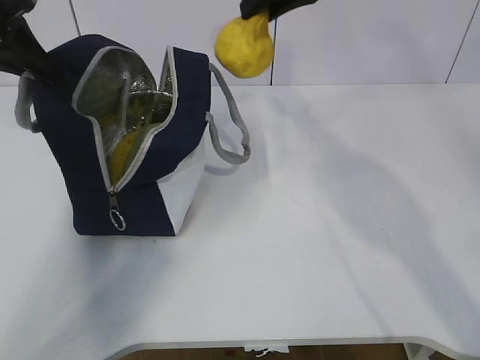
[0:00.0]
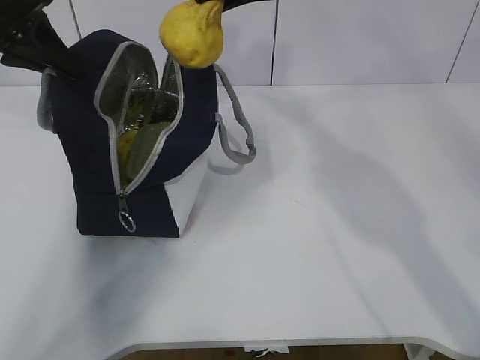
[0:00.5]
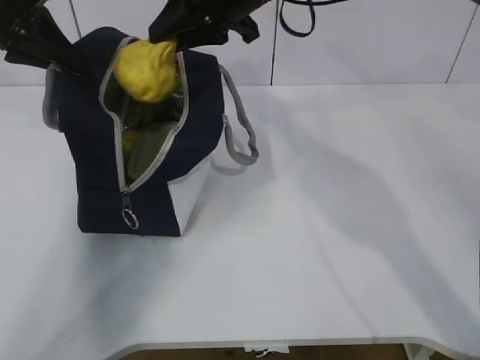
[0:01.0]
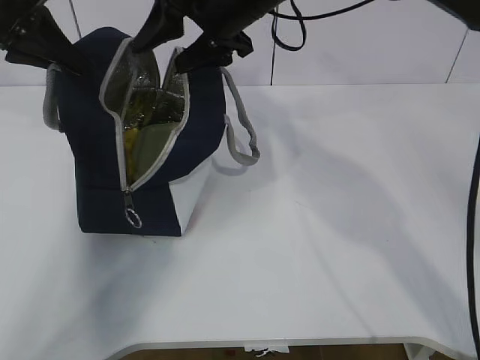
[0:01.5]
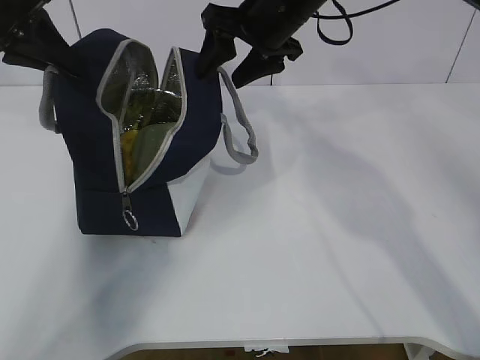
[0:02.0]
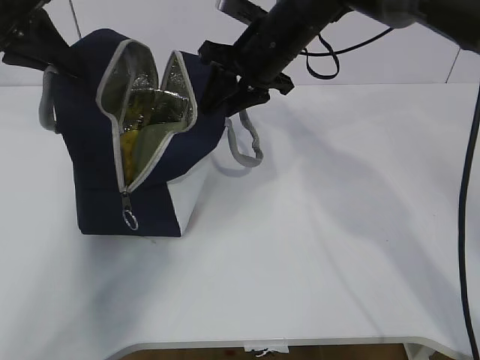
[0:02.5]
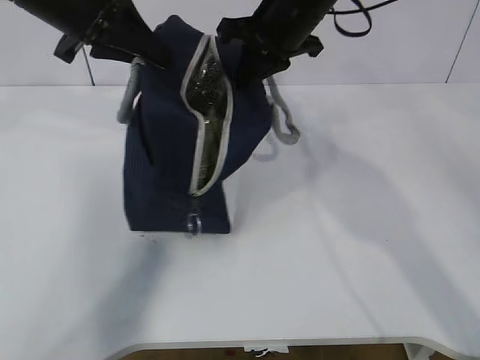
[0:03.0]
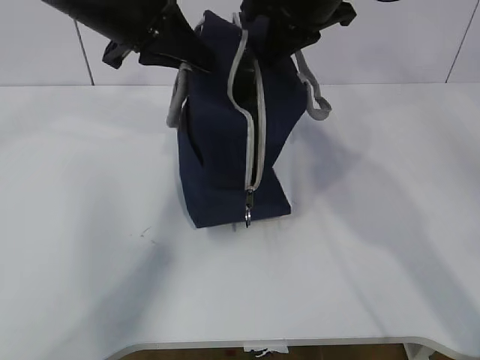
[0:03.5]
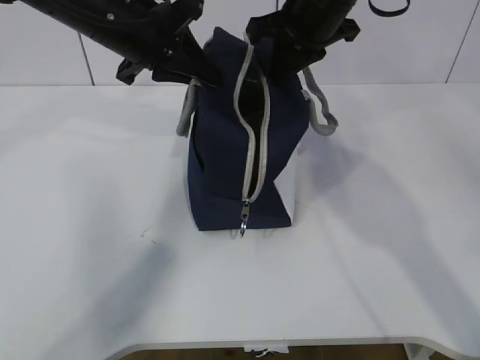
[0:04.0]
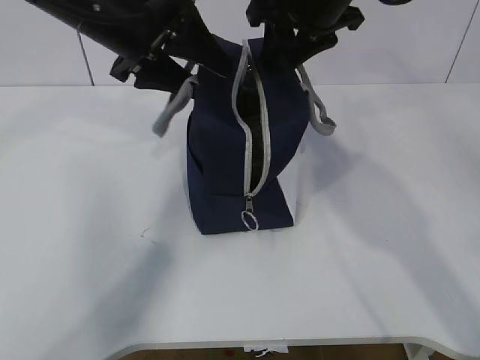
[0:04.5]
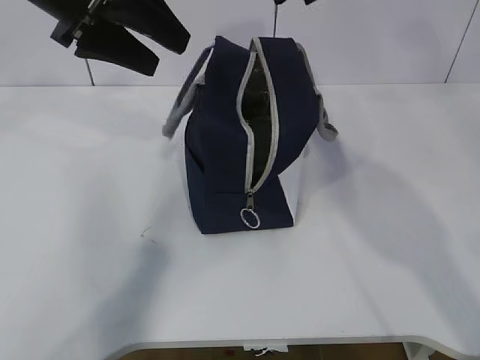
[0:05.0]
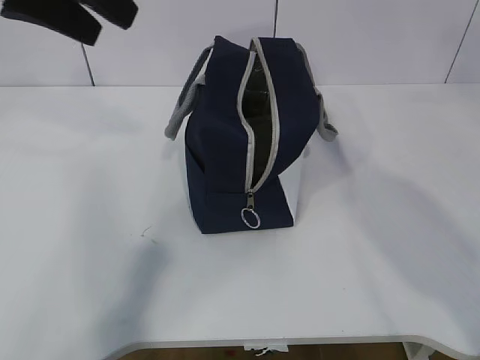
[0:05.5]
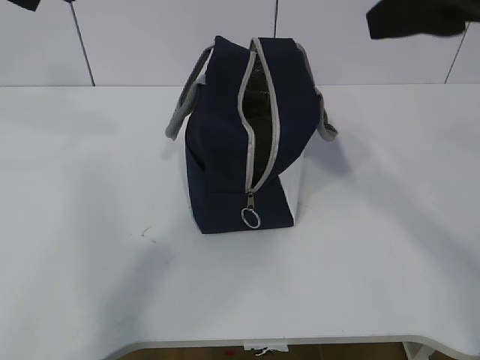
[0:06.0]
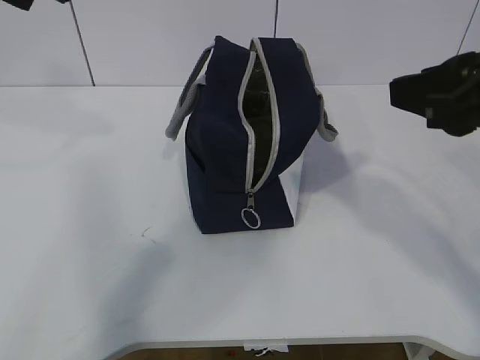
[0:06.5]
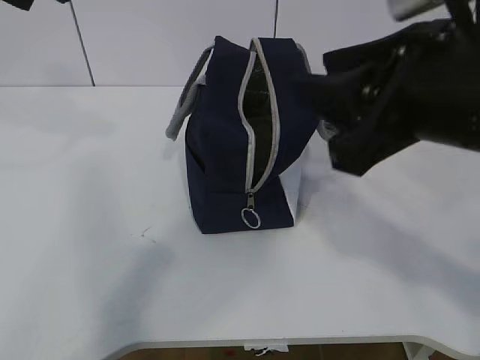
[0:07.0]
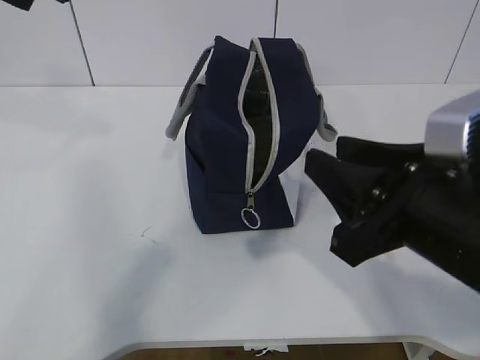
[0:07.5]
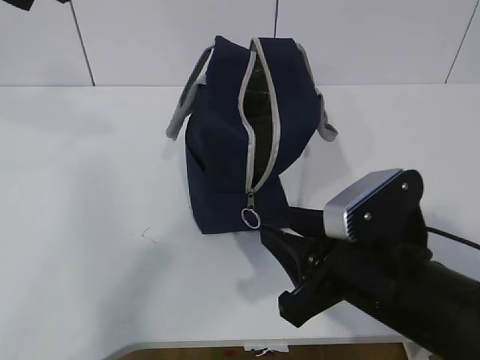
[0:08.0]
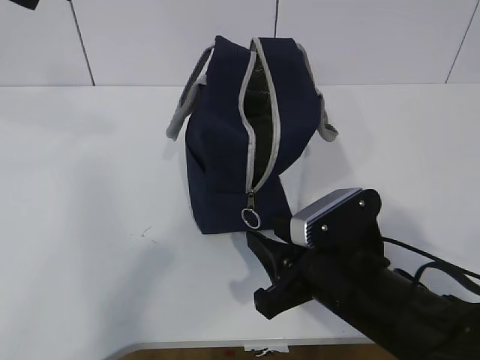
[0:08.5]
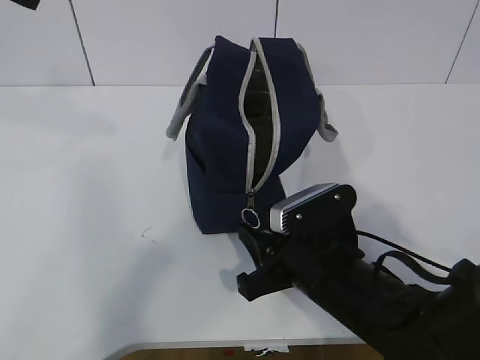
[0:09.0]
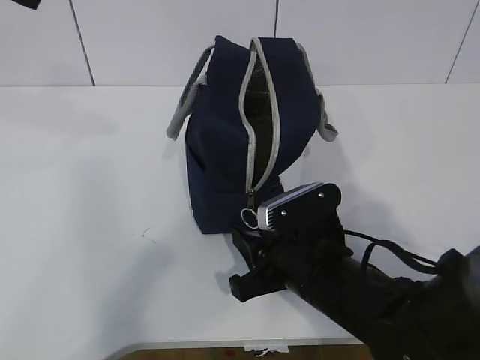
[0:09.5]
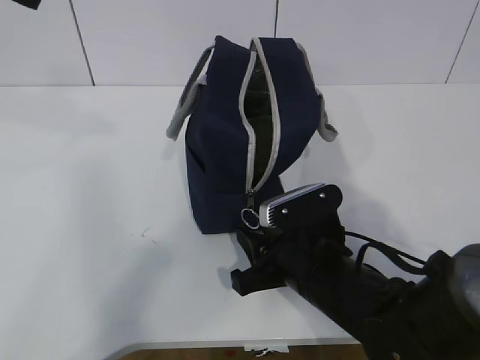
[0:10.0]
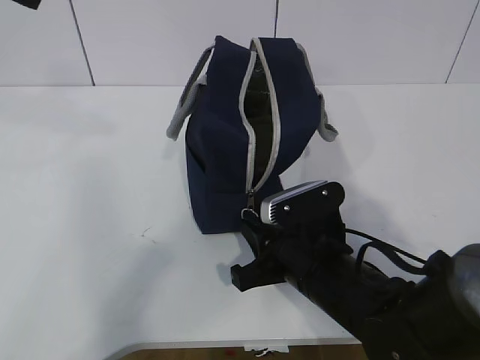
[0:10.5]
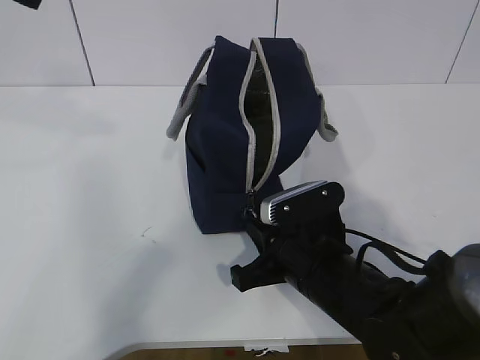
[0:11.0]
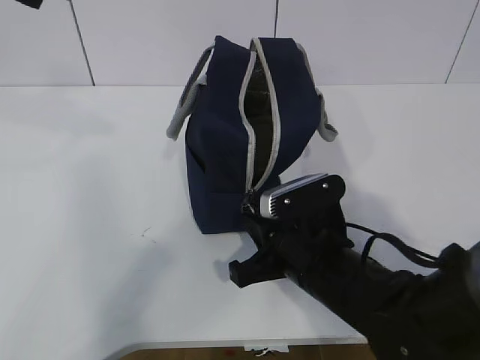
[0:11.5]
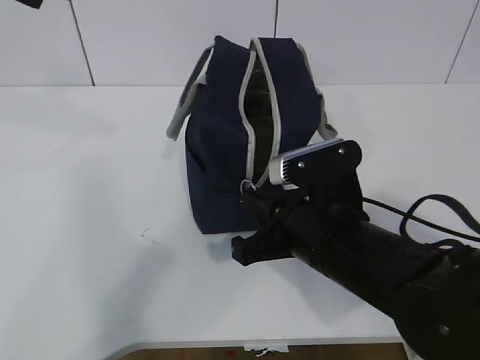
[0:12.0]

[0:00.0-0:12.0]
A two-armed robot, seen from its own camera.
Step, 0:00.0 to 0:09.5: Grab the lunch bag with your left hand.
0:00.0 to 0:02.0: The right gripper travels downward by roughly 10 cm, and opens up.
0:02.0 to 0:04.0: The left gripper moves to the right, approximately 15 cm; the right gripper moves approximately 5 cm downward and comes back, and closes up.
0:04.0 to 0:06.0: The right gripper moves backward, some 20 cm, and opens its fingers; the left gripper is displaced upward, backward and to the left by about 20 cm, and opens its fingers.
0:06.0 to 0:08.0: The right gripper moves downward, some 25 cm.
0:08.0 to 0:10.0: The right gripper moves downward and forward, about 10 cm.
0:10.0 to 0:12.0: The right gripper travels upward by about 5 cm, and closes its fingers.

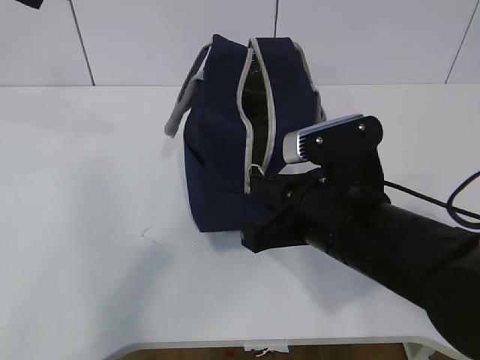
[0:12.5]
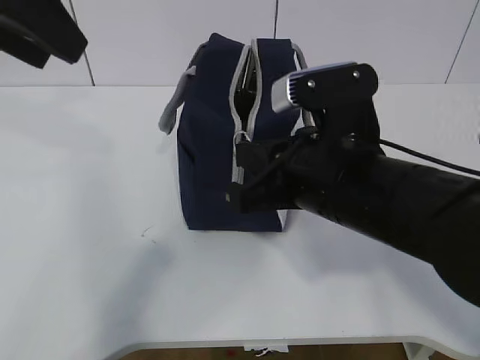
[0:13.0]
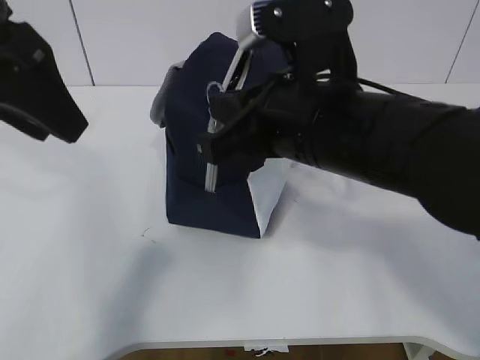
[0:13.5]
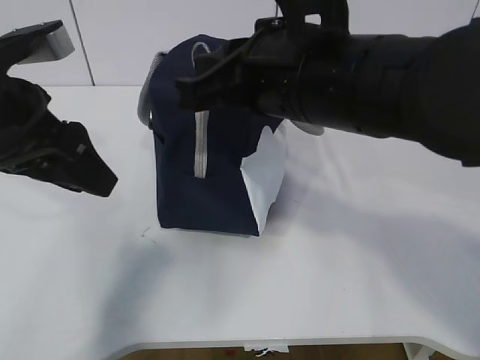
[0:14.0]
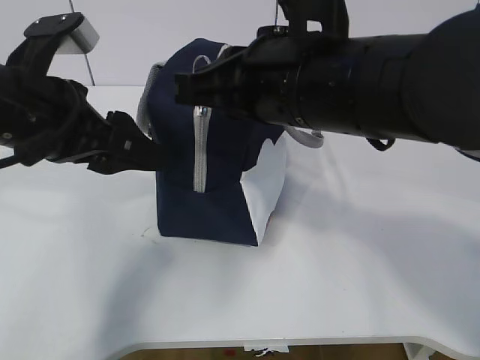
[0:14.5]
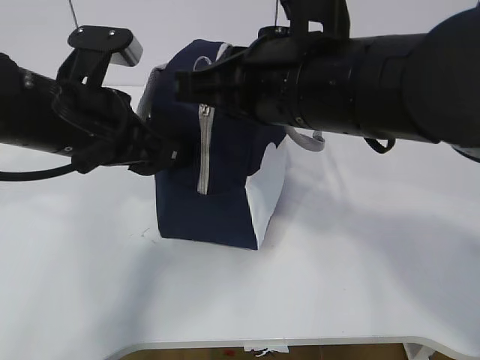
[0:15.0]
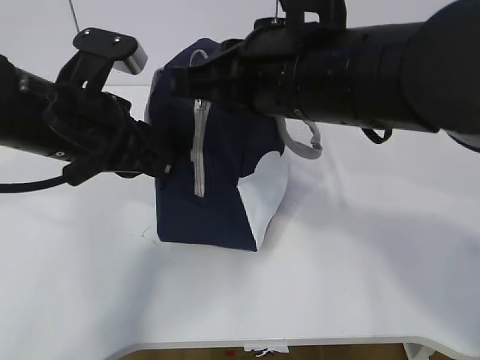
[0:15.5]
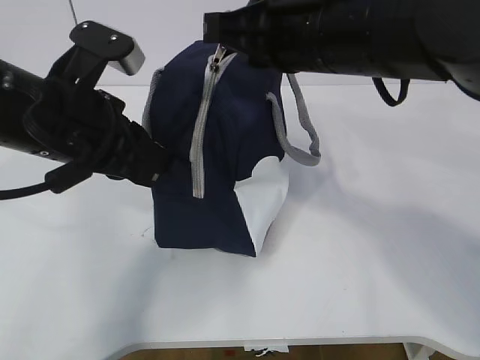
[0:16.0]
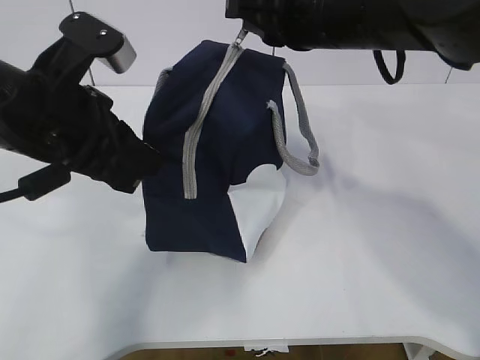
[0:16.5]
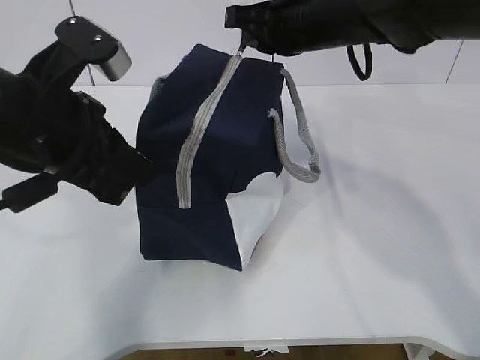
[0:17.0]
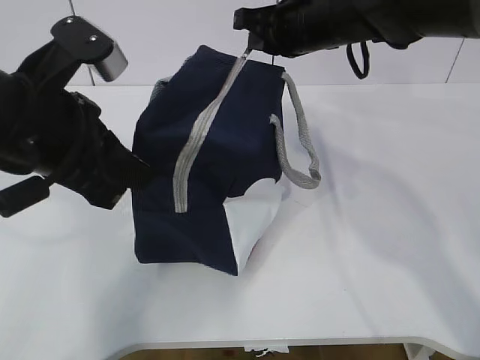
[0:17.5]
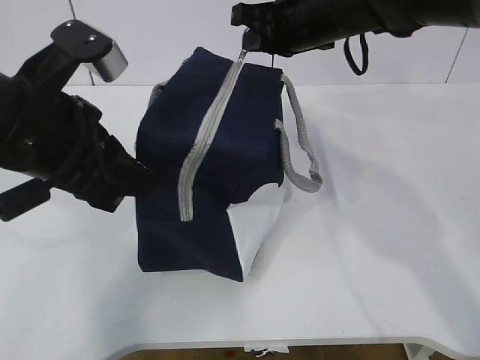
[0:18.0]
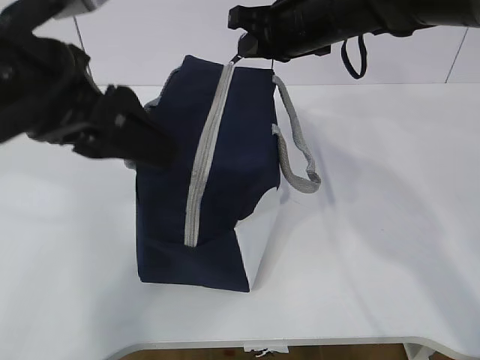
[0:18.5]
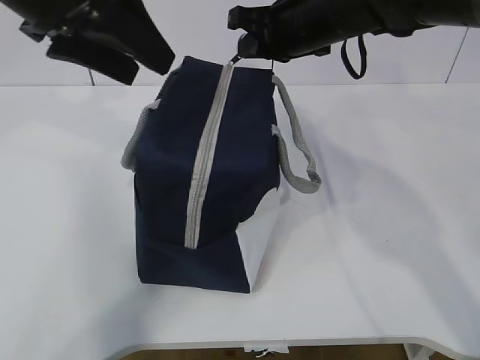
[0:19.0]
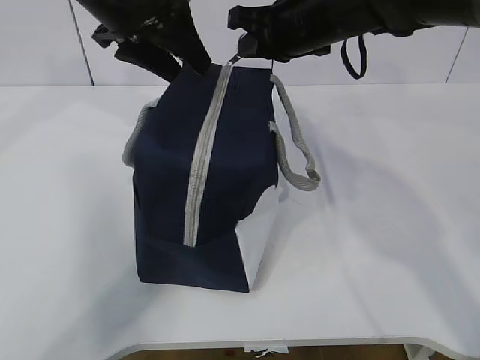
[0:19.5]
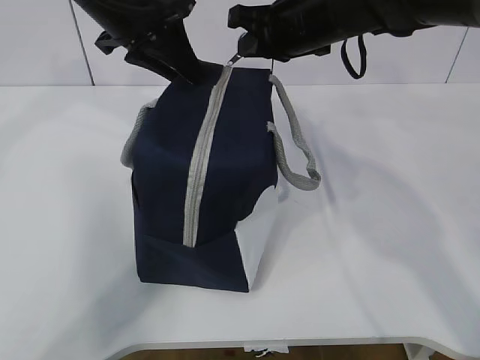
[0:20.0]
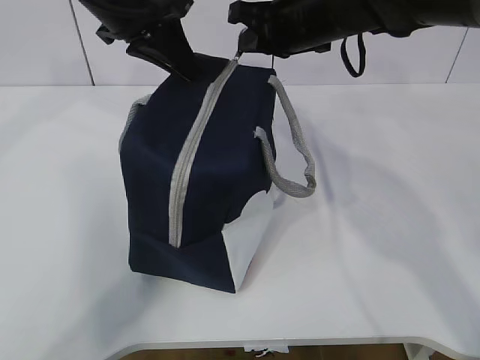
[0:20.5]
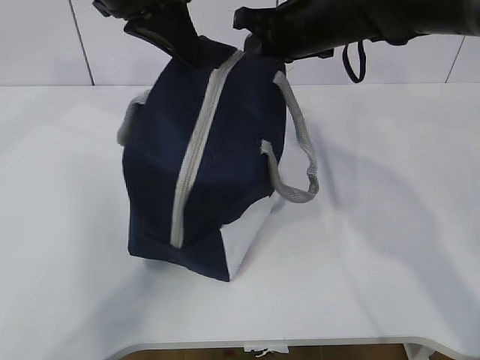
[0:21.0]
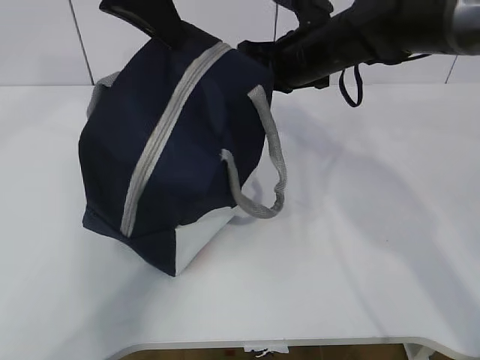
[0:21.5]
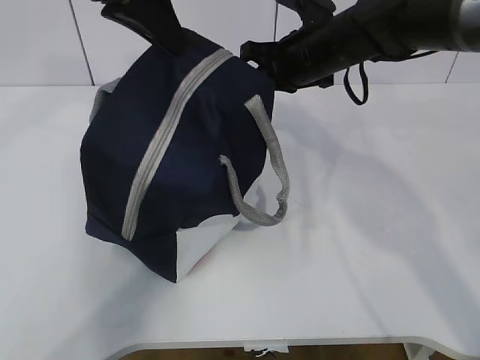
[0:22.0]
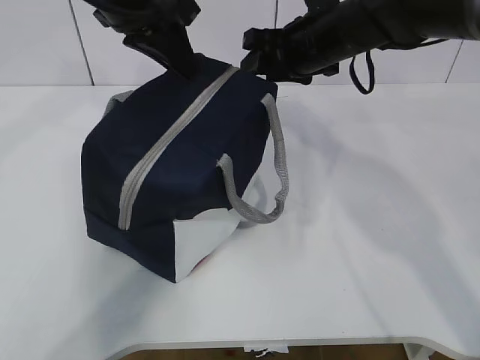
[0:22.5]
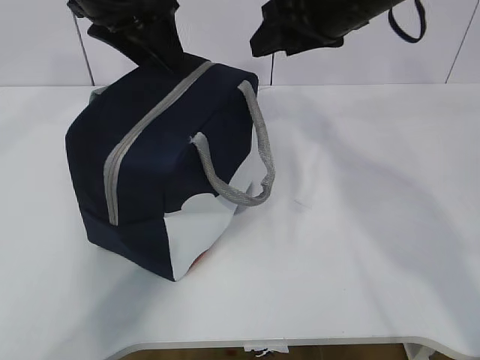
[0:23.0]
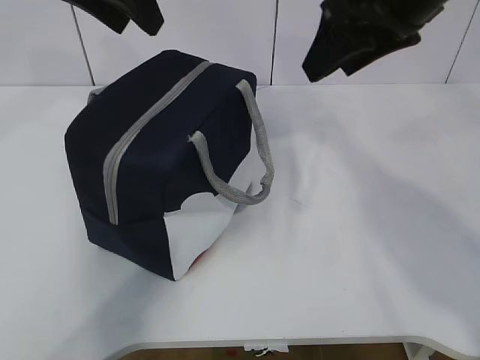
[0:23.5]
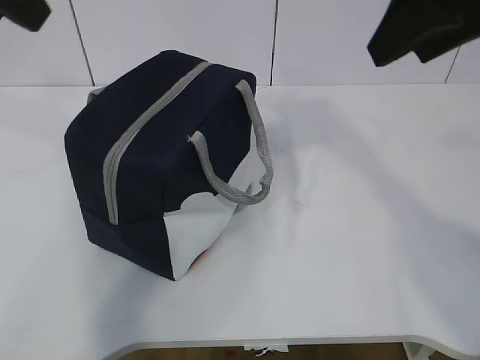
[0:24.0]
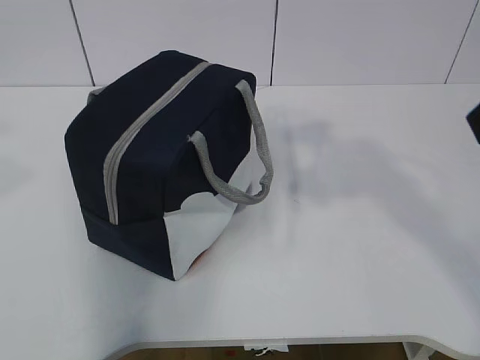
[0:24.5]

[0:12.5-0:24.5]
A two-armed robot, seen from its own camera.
0:12.5 to 0:14.5: The right gripper heads upward, covering about 10 cm. The left gripper heads downward, covering roughly 15 cm.
0:14.5 to 0:16.5: The left gripper closes, while the right gripper shifts some 10 cm forward.
0:16.5 to 0:18.5: The right gripper is displaced forward by roughly 10 cm, while the left gripper shifts some 5 cm upward, and opens.
0:18.5 to 0:20.5: The left gripper moves forward, roughly 15 cm, and closes.
0:20.5 to 0:22.5: The right gripper opens.
0:22.5 to 0:24.5: The left gripper goes about 30 cm backward and to the left, and opens its fingers. The right gripper goes roughly 30 cm backward and upward.

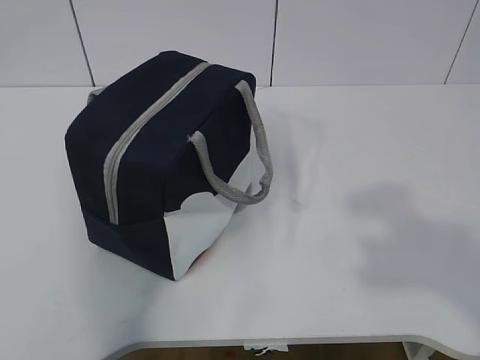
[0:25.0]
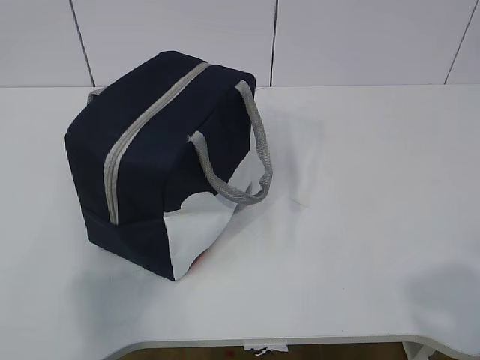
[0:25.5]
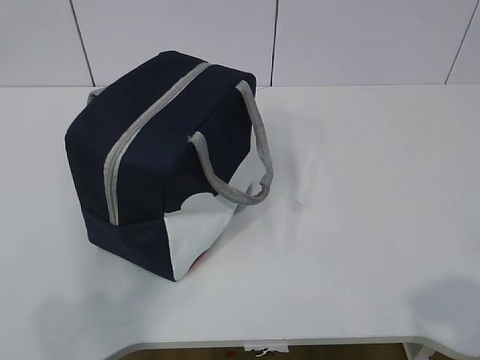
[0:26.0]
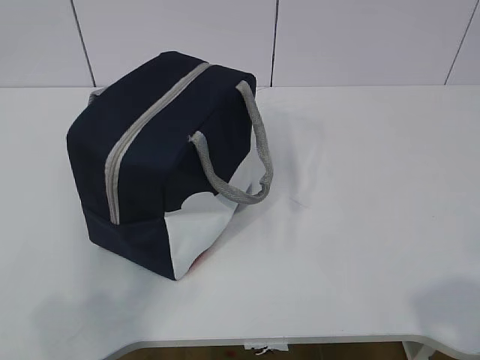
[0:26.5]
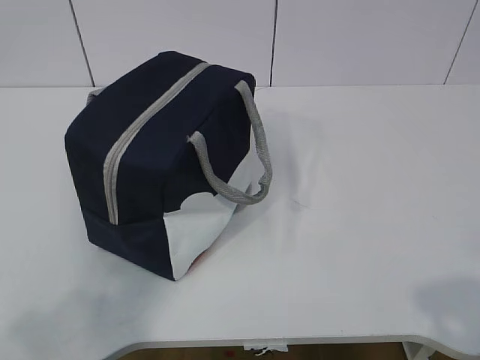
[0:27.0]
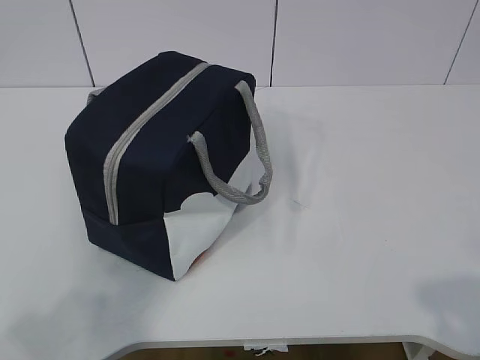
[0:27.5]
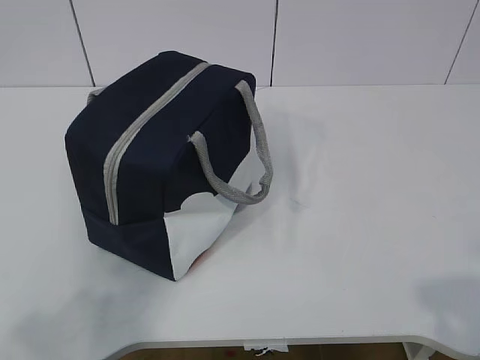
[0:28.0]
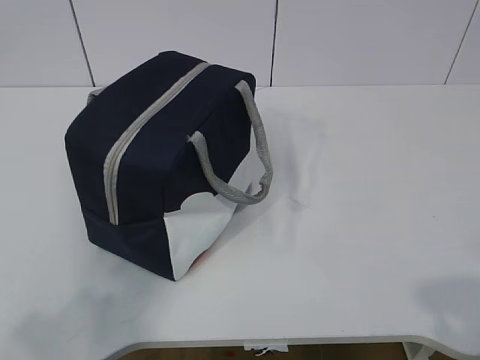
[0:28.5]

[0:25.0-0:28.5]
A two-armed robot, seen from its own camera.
0:25.0 to 0:27.0: The right gripper moves downward, about 10 cm.
0:27.0 to 0:28.5: Neither gripper changes place.
